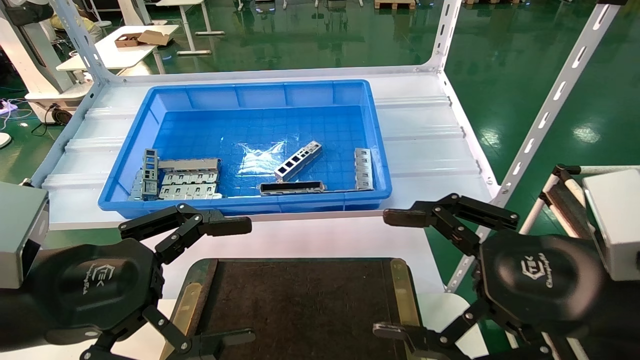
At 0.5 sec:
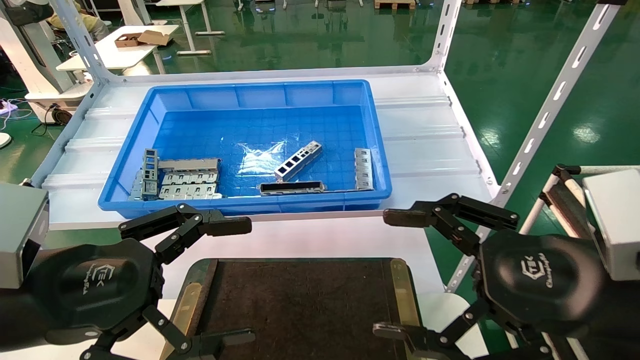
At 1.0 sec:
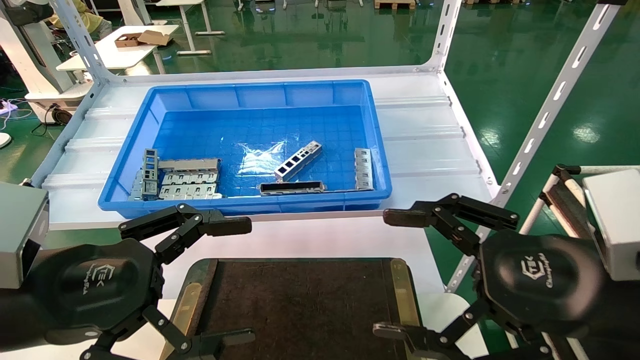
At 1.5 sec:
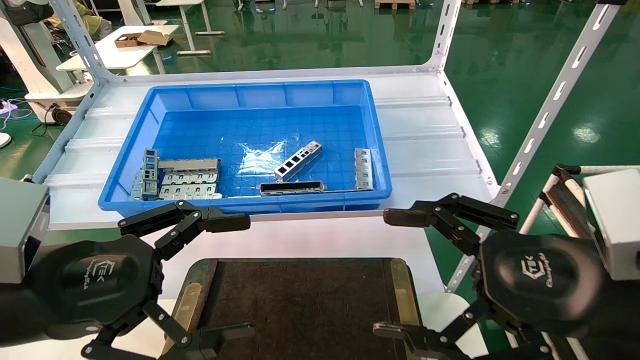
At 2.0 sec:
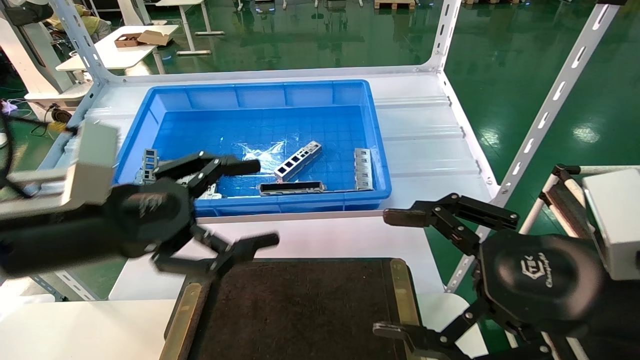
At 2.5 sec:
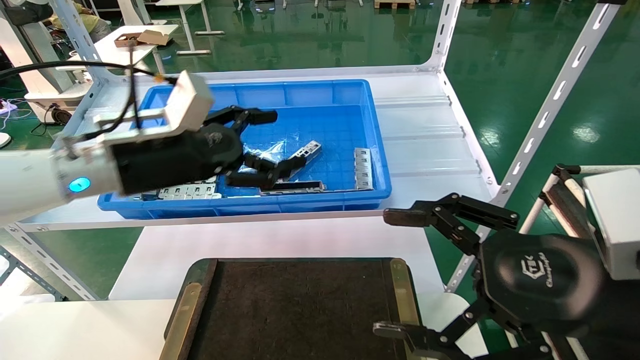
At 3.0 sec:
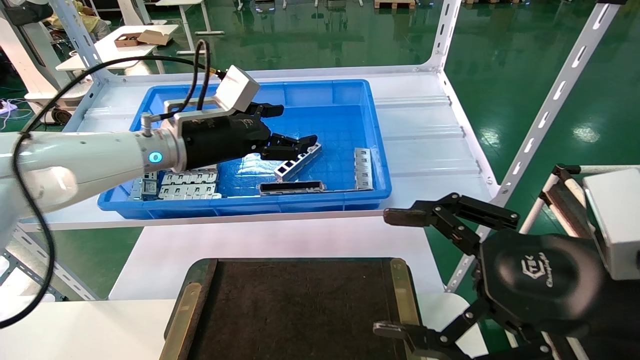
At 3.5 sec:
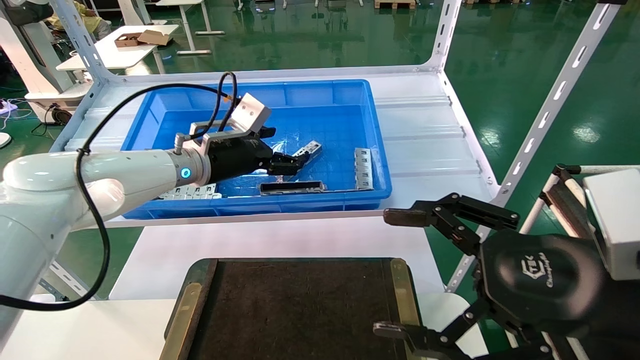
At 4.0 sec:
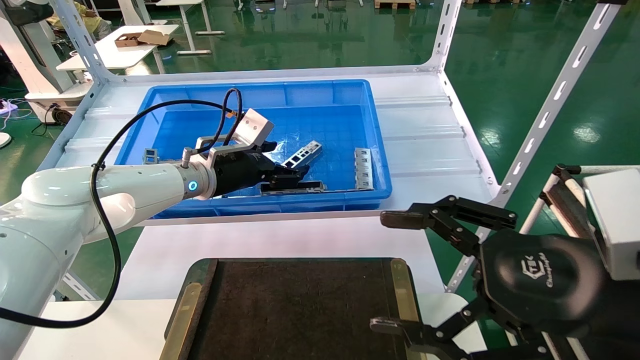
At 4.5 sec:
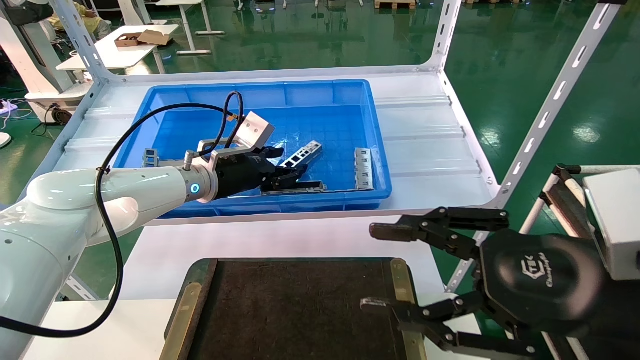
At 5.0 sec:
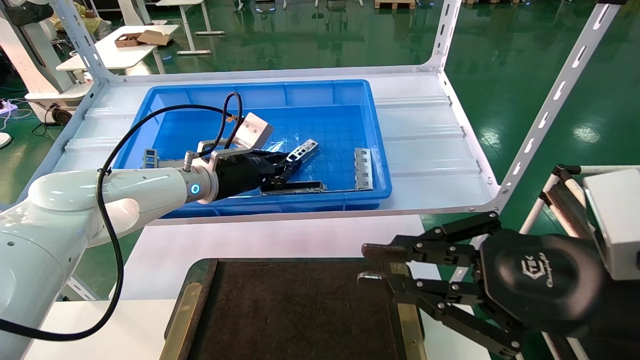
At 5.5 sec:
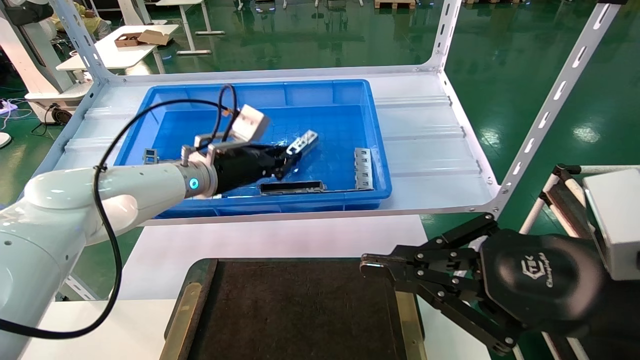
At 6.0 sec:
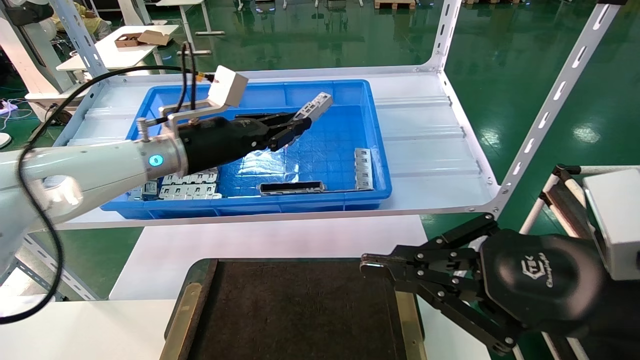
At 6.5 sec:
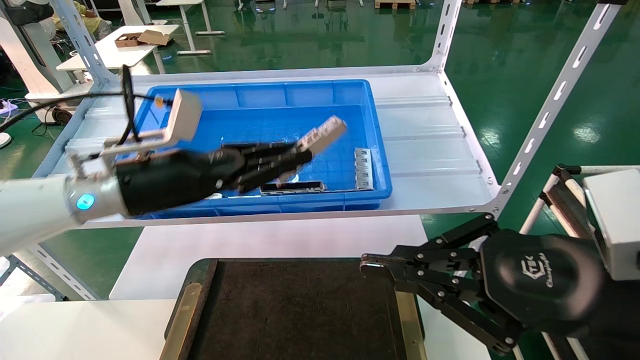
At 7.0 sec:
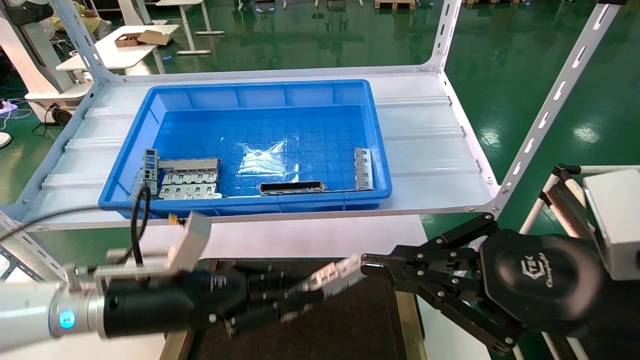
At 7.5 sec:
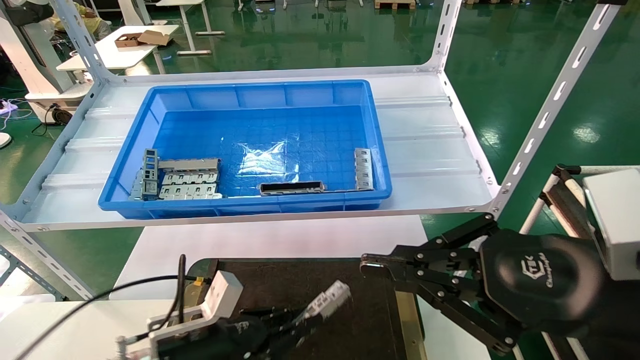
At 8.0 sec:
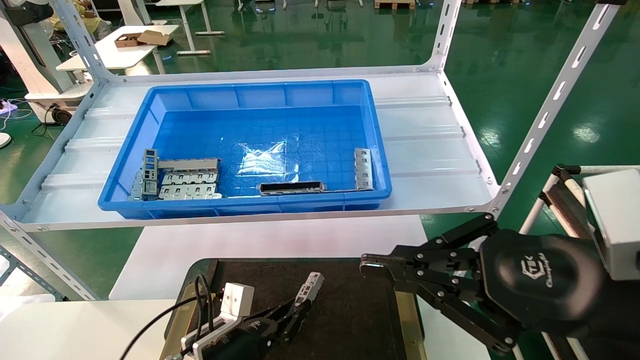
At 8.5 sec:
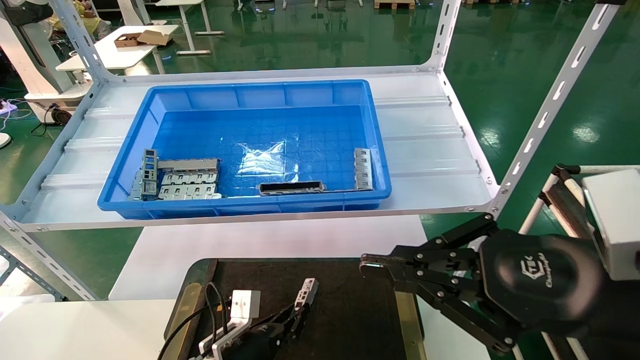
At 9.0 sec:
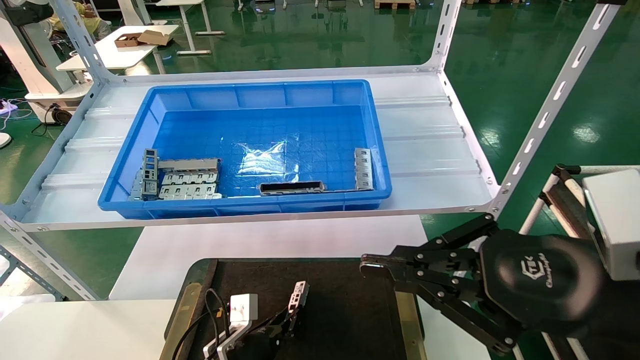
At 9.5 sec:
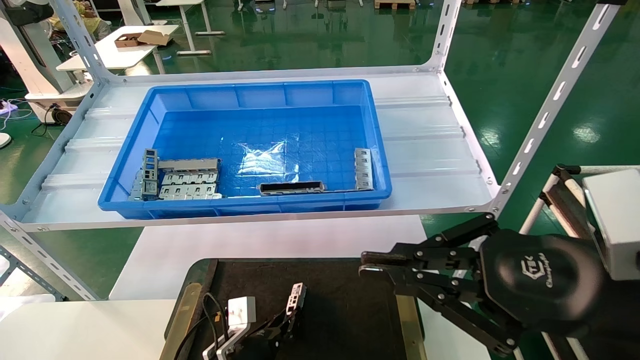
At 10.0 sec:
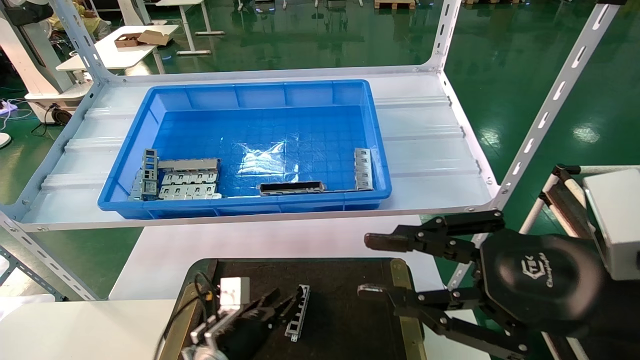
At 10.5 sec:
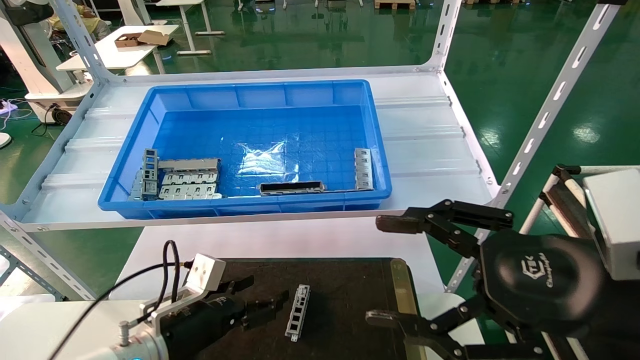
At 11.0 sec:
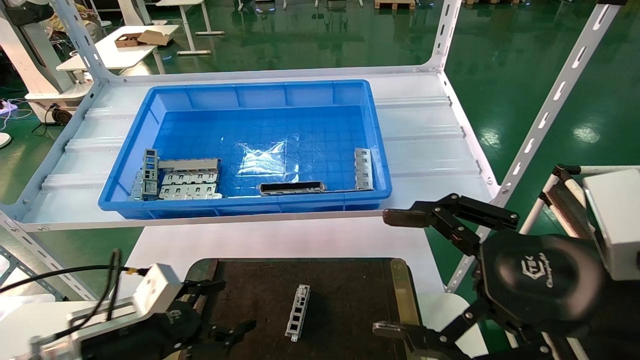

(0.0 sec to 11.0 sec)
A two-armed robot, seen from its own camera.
Task of the whole recording: Grasp the part with one hand and place it on the black container.
Step, 2.0 sec - 5.5 sec: Pick up the front USB bracket from the feeding area.
Step, 6.0 sec - 9.5 sec: Place the front USB bracket into the box.
0.0 sec - 2.0 sec: The left gripper travels forward by approximately 5 cm.
2.0 sec - 3.5 sec: The left gripper heads forward, covering approximately 20 cm.
3.5 sec - 5.5 sec: The left gripper closes. Meanwhile the right gripper closes its fingers.
5.5 sec - 7.5 sec: The left gripper shifts roughly 30 cm downward and backward.
7.5 sec - 9.0 sec: The left gripper travels downward and forward by some 15 cm.
9.0 sec - 11.0 sec: The left gripper shifts about 20 cm upward, to the left and backward, and opens up, while the right gripper opens.
